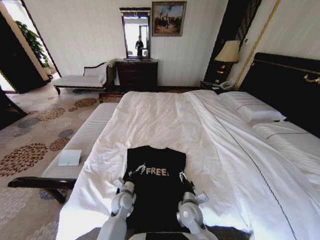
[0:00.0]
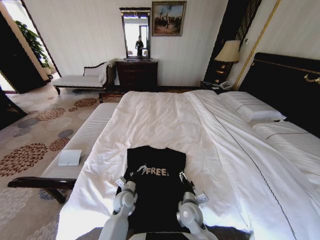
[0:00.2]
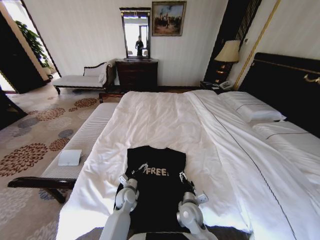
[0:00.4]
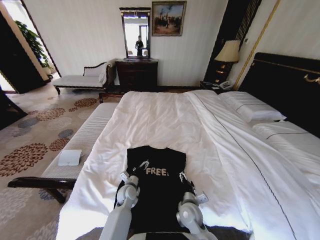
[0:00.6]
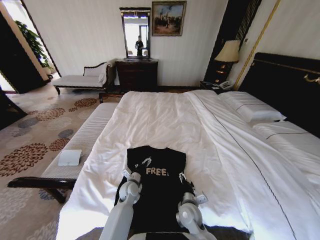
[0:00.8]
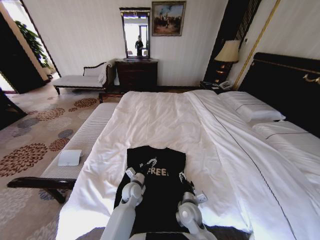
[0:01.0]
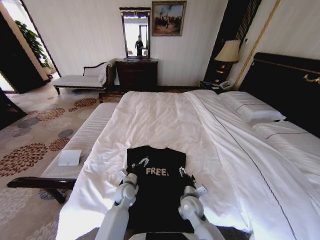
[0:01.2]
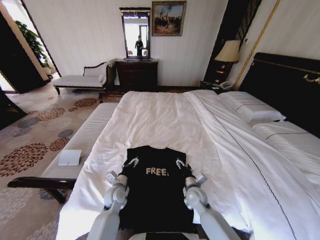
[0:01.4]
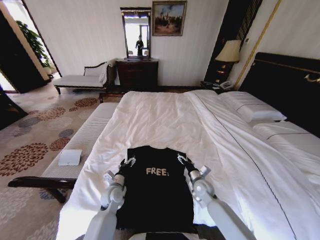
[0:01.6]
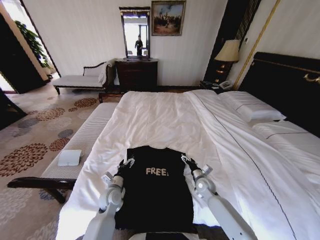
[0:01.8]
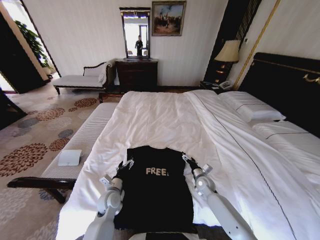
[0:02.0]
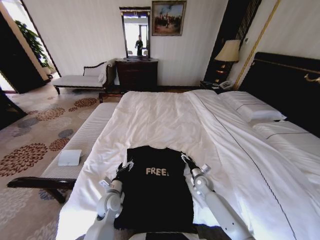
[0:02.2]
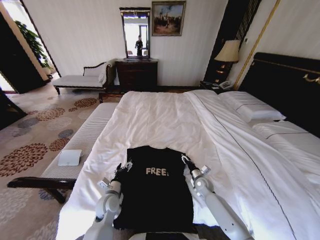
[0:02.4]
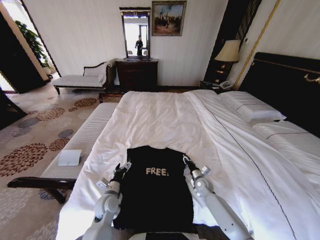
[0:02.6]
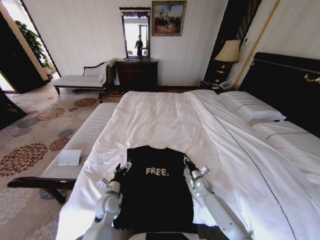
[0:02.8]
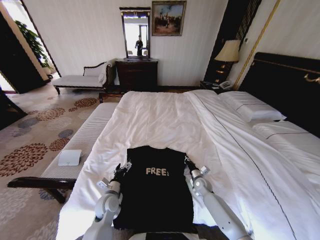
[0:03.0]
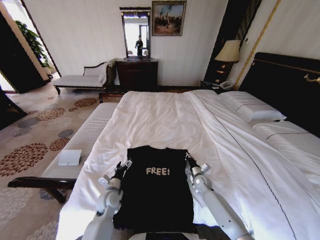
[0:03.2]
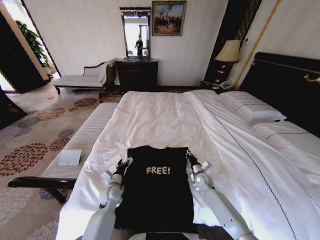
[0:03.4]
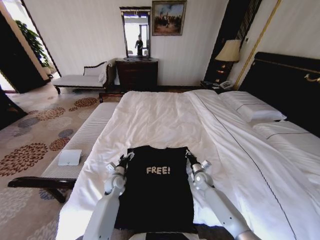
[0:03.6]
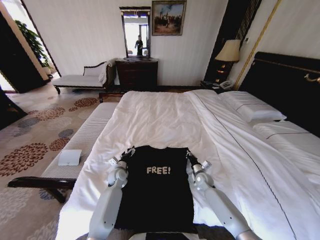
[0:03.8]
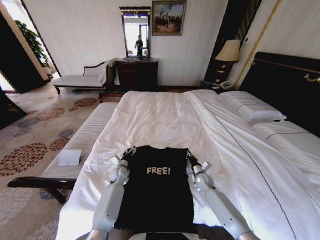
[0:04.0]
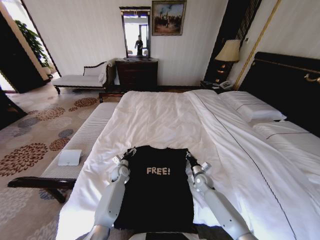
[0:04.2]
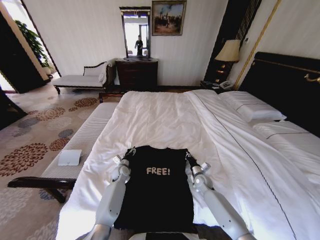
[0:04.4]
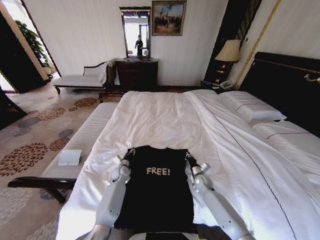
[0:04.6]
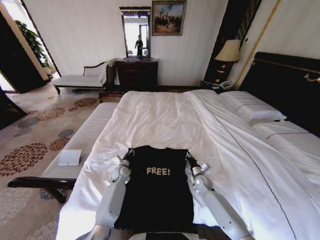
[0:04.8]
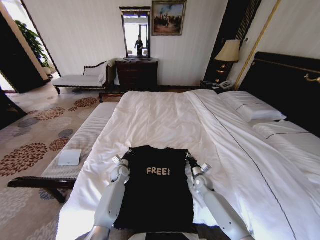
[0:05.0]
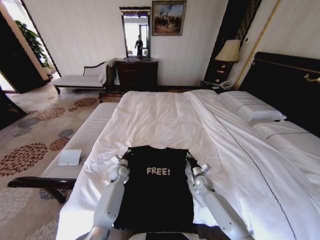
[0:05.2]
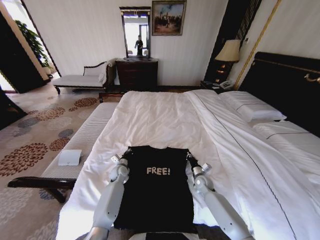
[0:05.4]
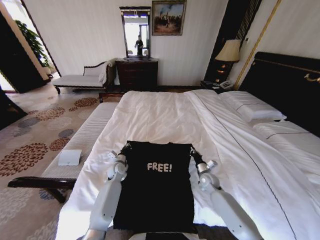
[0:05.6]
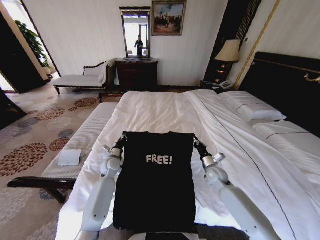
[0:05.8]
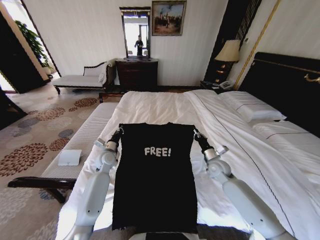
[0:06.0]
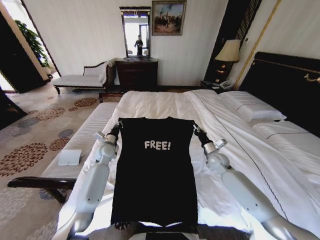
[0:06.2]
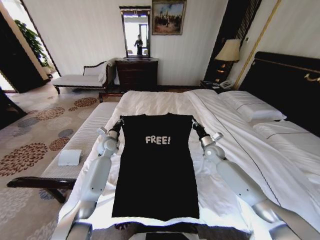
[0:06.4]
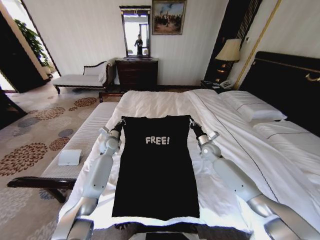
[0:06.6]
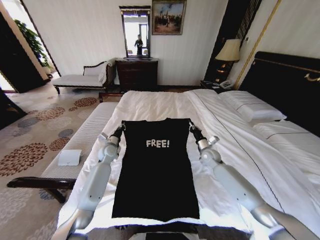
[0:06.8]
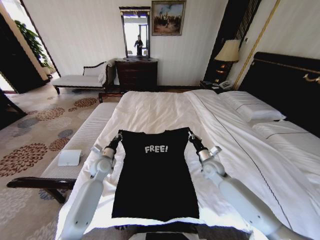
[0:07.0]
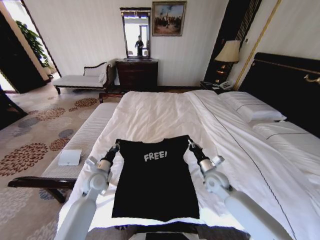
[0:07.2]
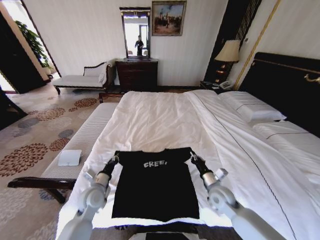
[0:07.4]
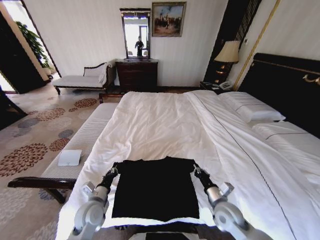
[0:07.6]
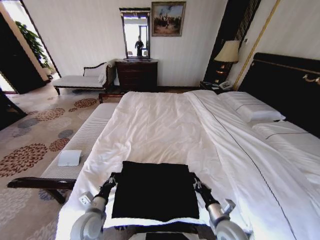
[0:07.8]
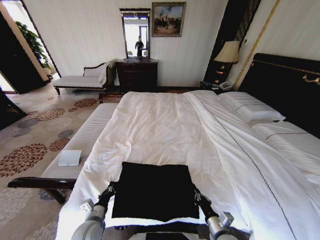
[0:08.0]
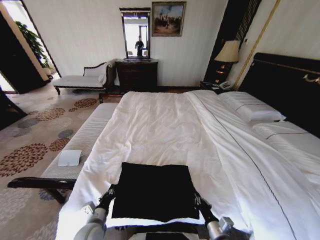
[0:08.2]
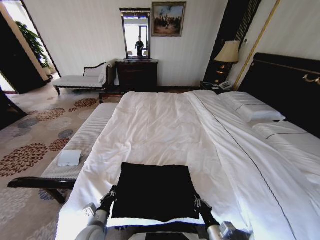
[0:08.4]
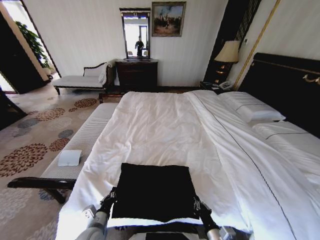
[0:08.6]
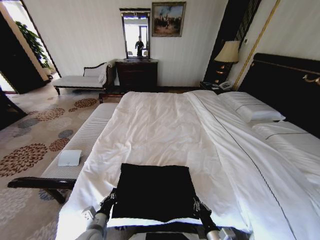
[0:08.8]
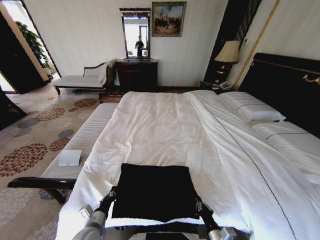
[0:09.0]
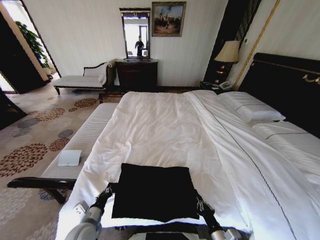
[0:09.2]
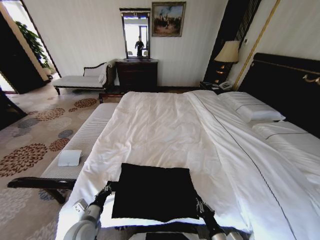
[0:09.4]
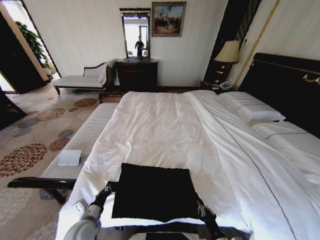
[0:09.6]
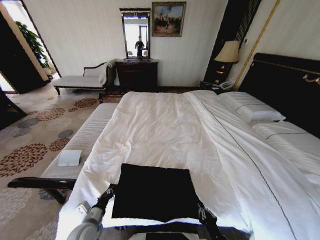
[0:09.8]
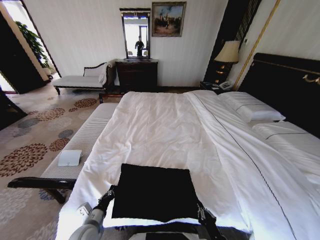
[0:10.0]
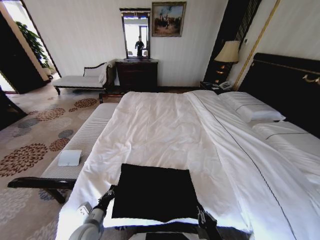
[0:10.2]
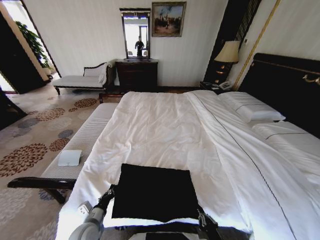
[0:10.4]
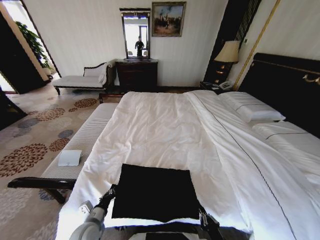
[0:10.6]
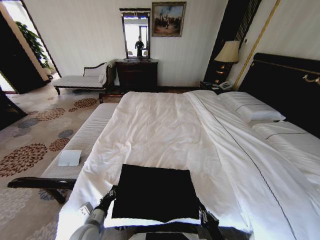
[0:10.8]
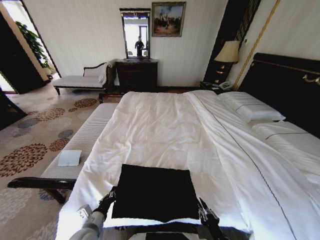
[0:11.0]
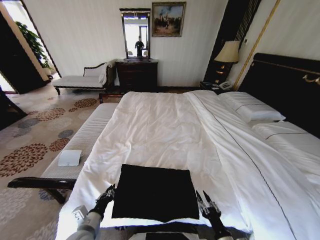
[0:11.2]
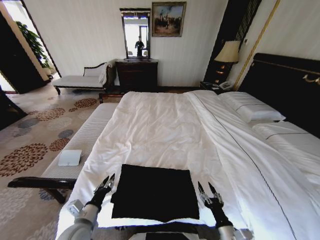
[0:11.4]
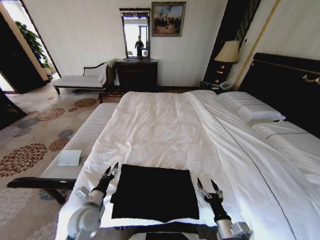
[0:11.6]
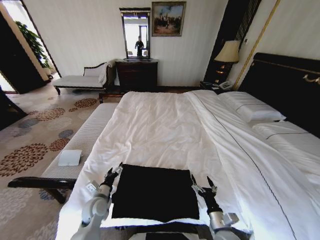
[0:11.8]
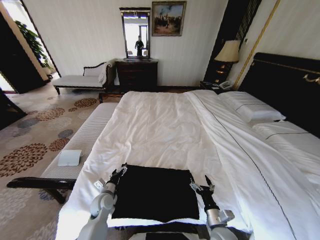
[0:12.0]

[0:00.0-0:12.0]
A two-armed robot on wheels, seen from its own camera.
Task of the whole recording: Fold the clothes on the bed.
0.0 to 1.6 s: The left gripper moves about 5 cm, while the right gripper goes roughly 15 cm forward and to the right.
1.6 to 3.0 s: The right gripper heads downward, covering approximately 10 cm, and closes its fingers.
3.0 to 4.4 s: The left gripper heads forward, covering some 20 cm.
4.4 to 6.0 s: Both grippers move upward, approximately 15 cm. The left gripper closes up.
6.0 to 7.6 s: Both grippers travel together backward, about 20 cm.
7.6 to 9.0 s: The right gripper is displaced backward and downward by some 15 cm; the left gripper travels backward by approximately 10 cm.
9.0 to 10.4 s: The right gripper is displaced backward by approximately 5 cm.
10.4 to 12.0 s: Both grippers travel together forward, approximately 10 cm. The right gripper opens up. Meanwhile the left gripper opens up.

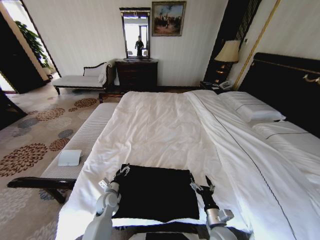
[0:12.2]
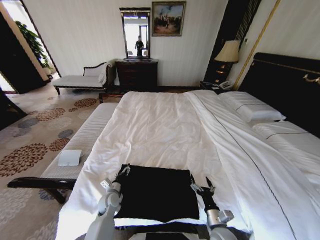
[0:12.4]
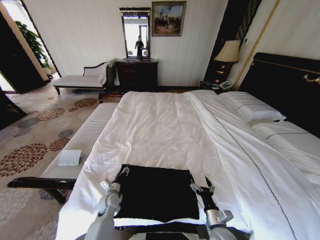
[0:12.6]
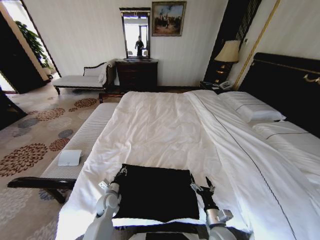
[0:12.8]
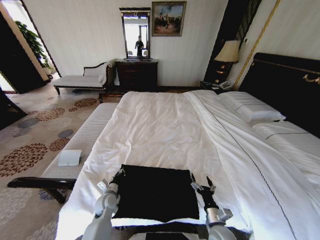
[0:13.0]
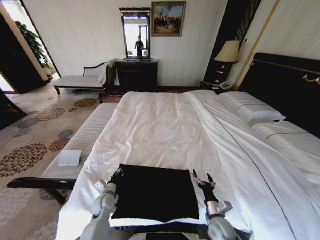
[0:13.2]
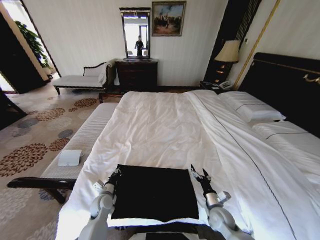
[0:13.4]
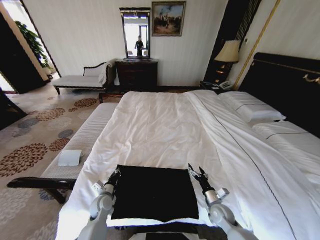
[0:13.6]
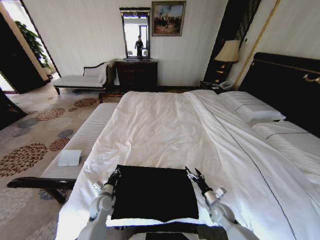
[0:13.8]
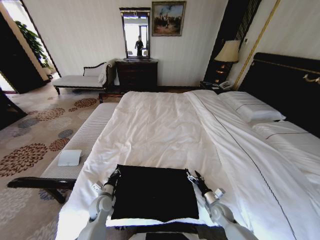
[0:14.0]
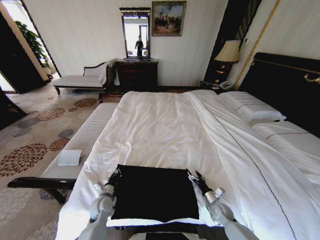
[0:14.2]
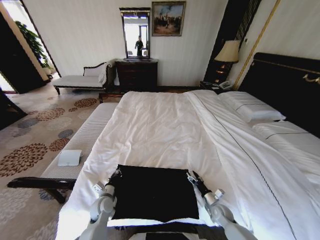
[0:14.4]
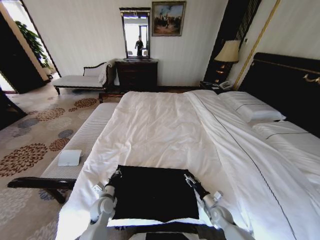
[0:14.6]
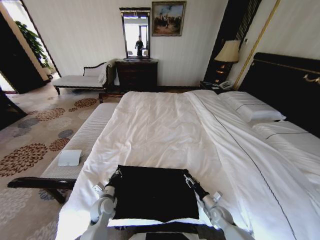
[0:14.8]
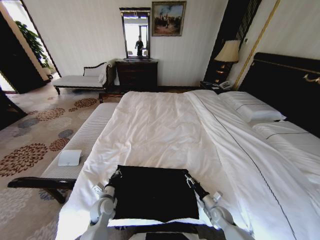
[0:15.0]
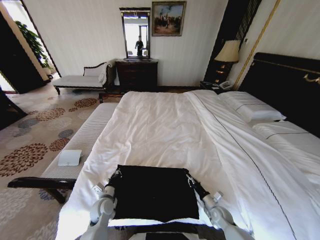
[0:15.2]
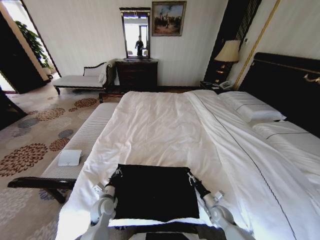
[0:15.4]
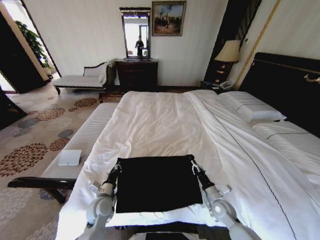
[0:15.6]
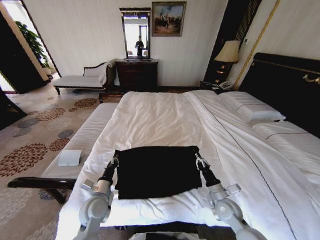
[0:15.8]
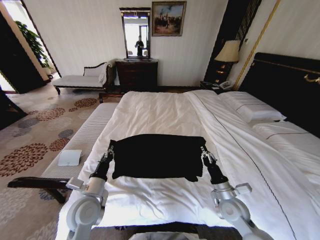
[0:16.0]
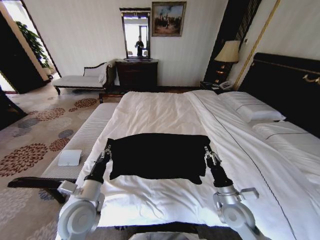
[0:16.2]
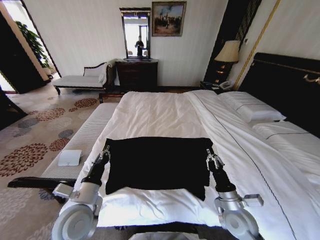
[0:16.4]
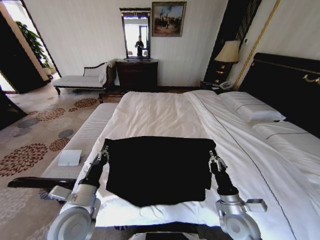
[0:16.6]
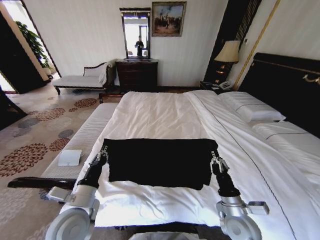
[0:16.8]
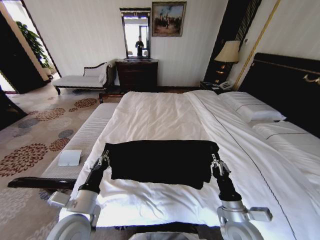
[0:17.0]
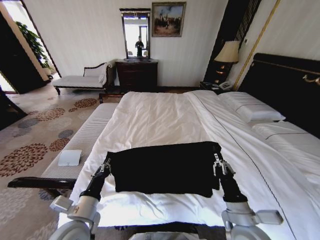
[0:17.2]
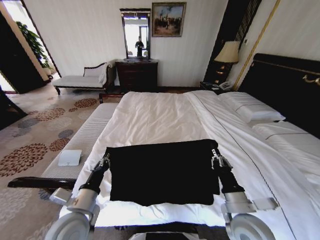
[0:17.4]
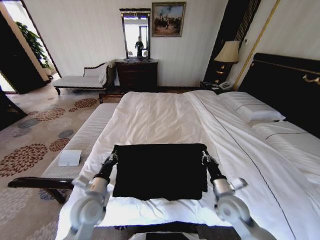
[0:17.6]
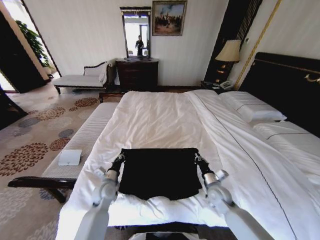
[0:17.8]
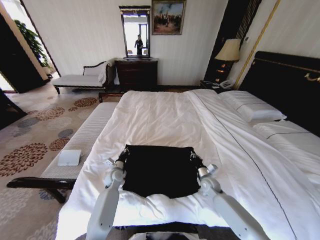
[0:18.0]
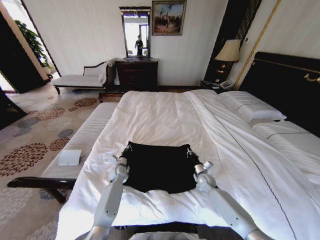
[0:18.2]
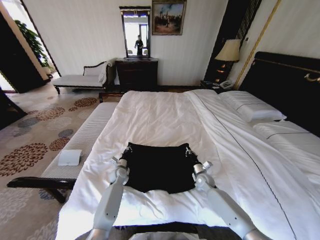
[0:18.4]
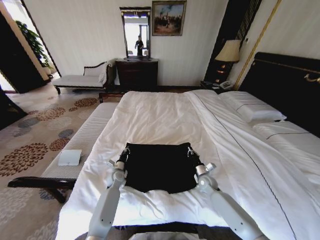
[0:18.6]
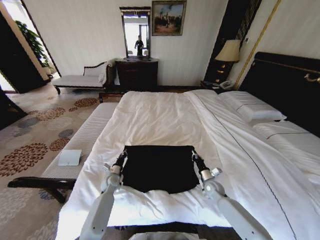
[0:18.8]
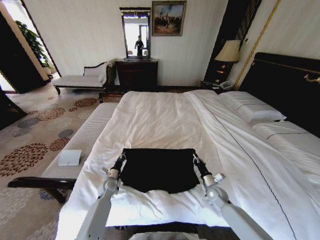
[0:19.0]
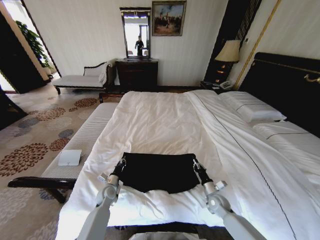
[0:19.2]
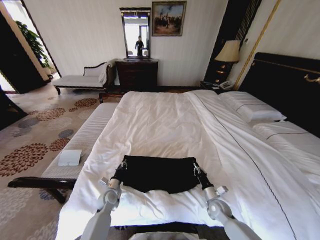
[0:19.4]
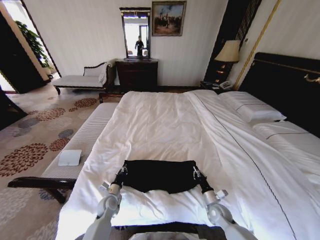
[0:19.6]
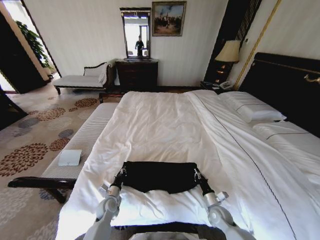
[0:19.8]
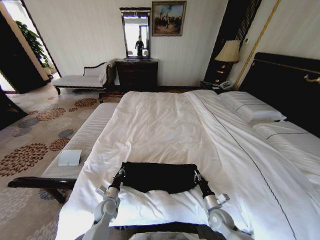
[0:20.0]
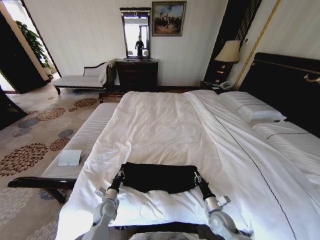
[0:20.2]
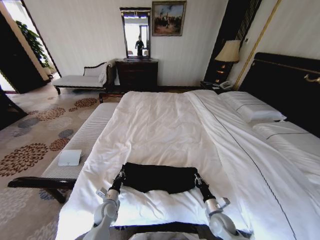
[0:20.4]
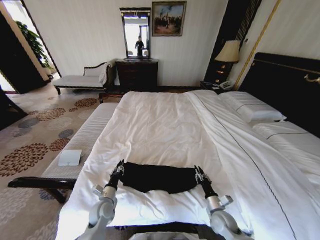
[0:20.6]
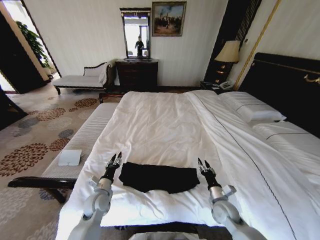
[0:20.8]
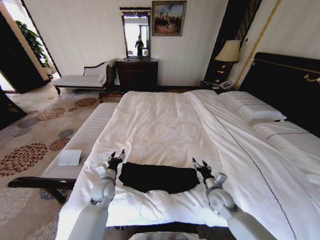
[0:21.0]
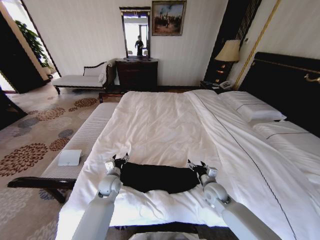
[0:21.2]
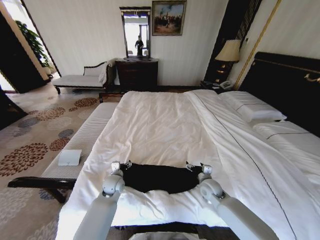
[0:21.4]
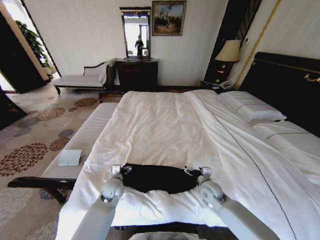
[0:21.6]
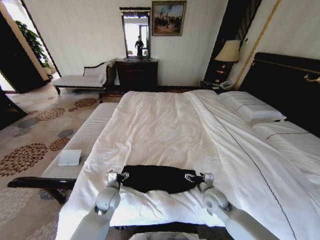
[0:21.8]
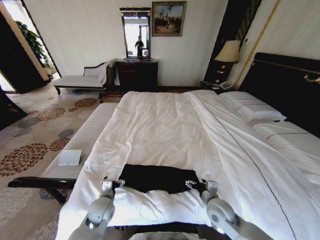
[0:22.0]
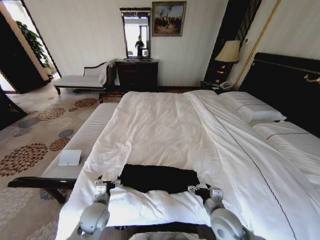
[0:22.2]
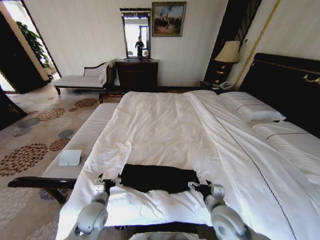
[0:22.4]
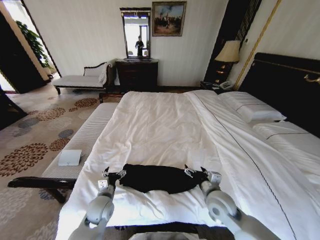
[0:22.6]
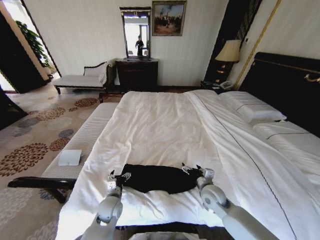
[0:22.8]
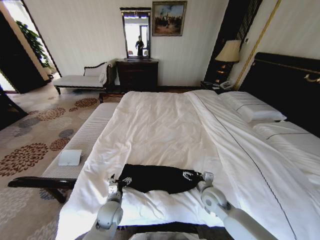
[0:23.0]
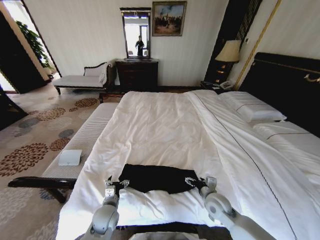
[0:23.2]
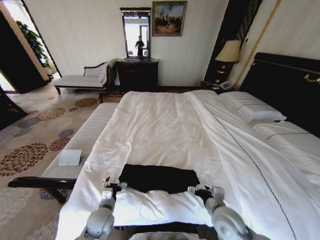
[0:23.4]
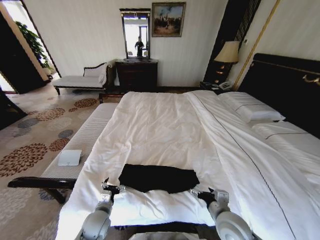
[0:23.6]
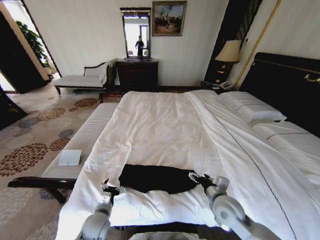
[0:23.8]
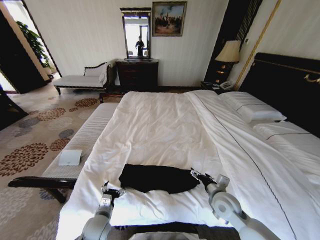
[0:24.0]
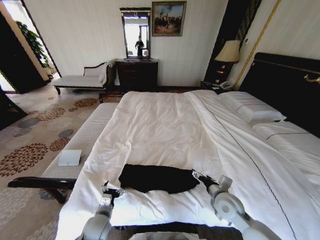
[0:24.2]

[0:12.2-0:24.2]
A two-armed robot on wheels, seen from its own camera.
Task of the whole recording: Fold the clothes on the bed.
12.2 to 13.8 s: The right gripper heads forward and to the right, covering about 10 cm. Meanwhile the left gripper closes up.
13.8 to 15.2 s: The right gripper closes.
15.2 to 16.6 s: The right gripper moves upward, roughly 20 cm. The left gripper is displaced upward and backward by some 20 cm.
16.6 to 18.2 s: The grippers both shift forward and downward by some 30 cm.
18.2 to 19.8 s: Both grippers move backward, roughly 15 cm.
19.8 to 21.2 s: Both grippers move upward and forward, roughly 15 cm. The left gripper opens up. Meanwhile the right gripper opens its fingers.
21.2 to 22.6 s: The right gripper moves upward and backward, some 10 cm. Meanwhile the left gripper goes approximately 10 cm backward.
22.6 to 24.2 s: The left gripper shifts some 5 cm backward. Meanwhile the right gripper reaches approximately 5 cm backward, then returns.
